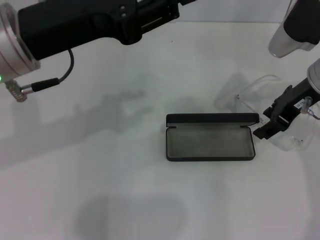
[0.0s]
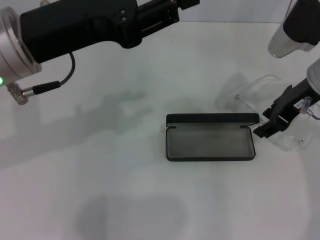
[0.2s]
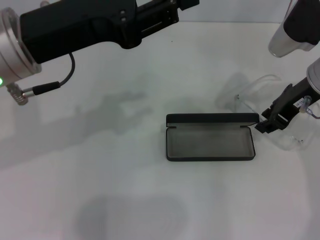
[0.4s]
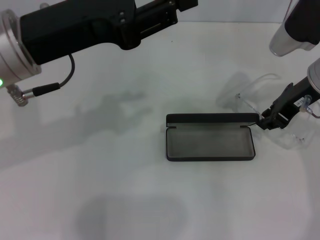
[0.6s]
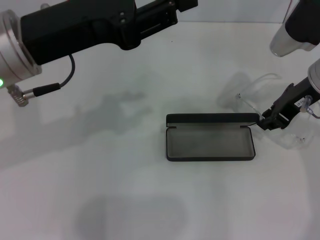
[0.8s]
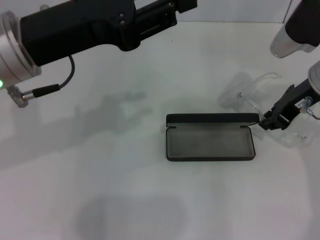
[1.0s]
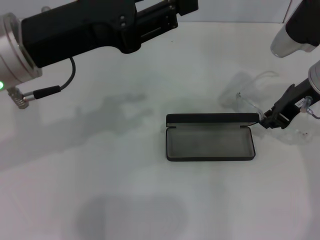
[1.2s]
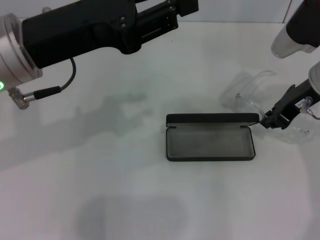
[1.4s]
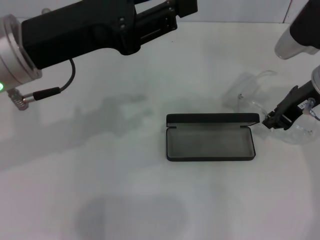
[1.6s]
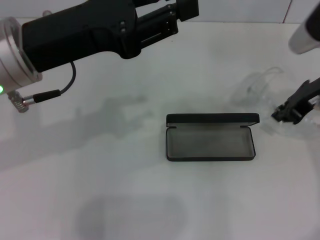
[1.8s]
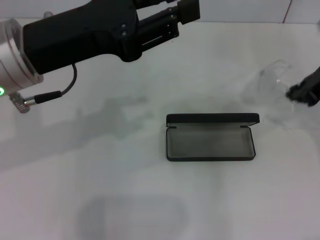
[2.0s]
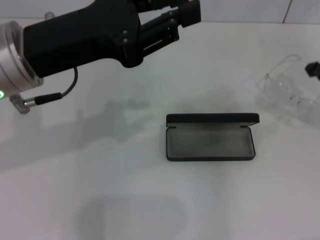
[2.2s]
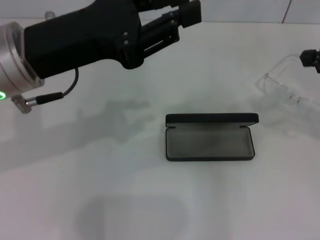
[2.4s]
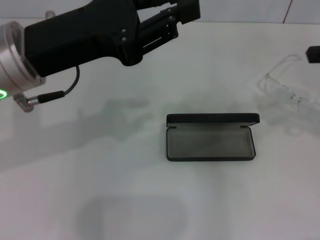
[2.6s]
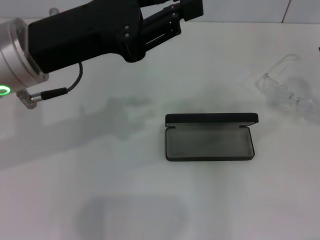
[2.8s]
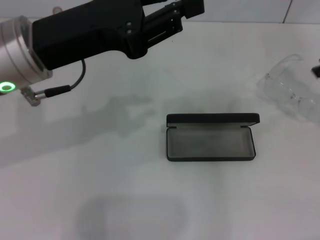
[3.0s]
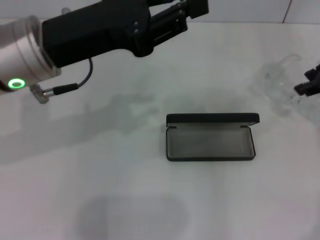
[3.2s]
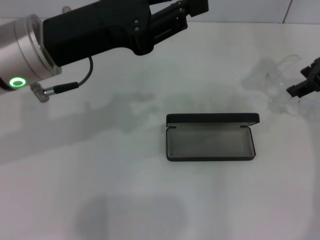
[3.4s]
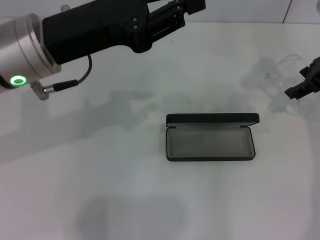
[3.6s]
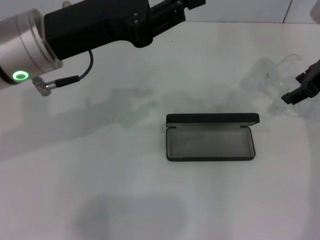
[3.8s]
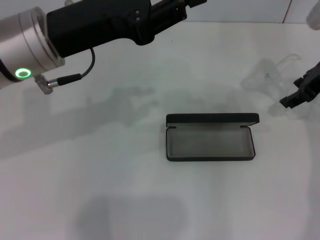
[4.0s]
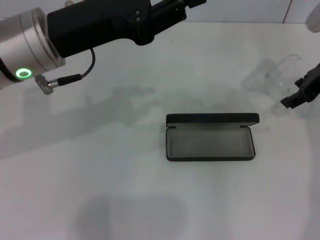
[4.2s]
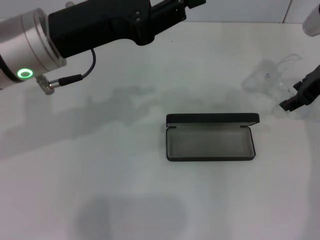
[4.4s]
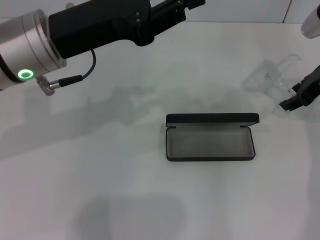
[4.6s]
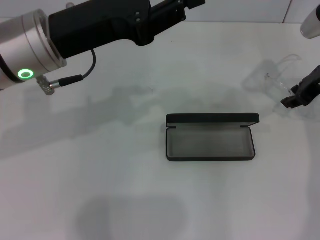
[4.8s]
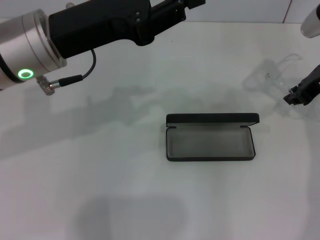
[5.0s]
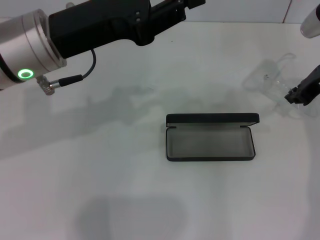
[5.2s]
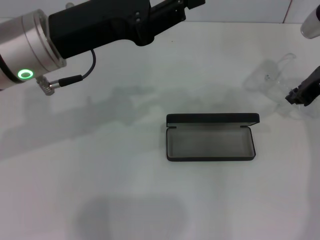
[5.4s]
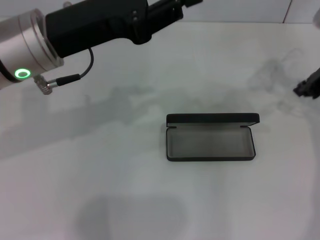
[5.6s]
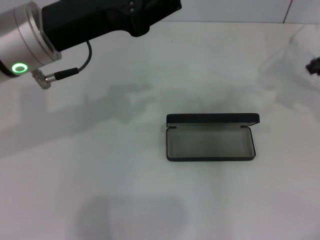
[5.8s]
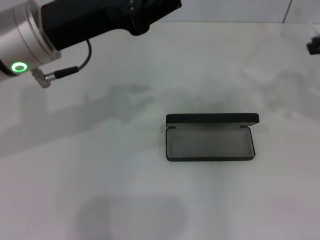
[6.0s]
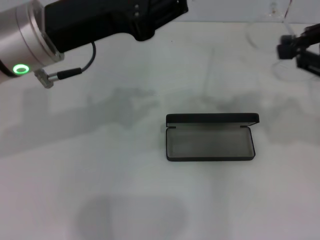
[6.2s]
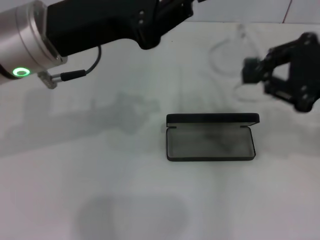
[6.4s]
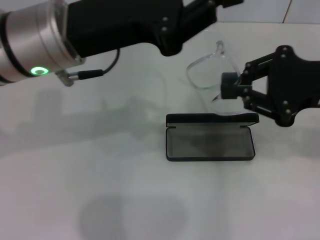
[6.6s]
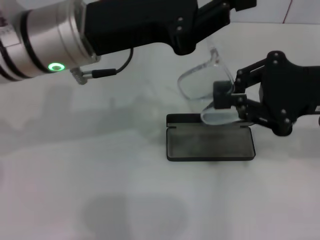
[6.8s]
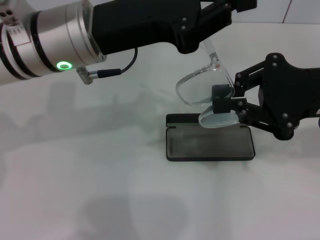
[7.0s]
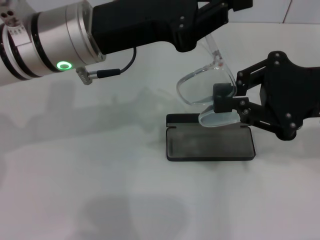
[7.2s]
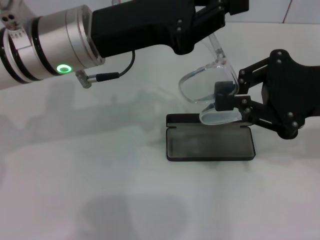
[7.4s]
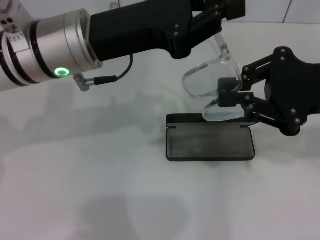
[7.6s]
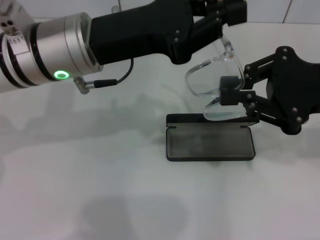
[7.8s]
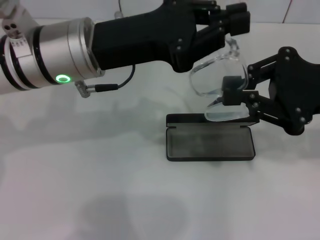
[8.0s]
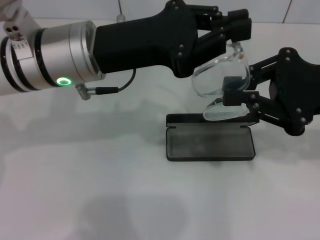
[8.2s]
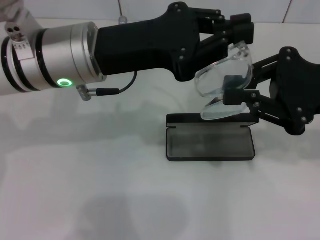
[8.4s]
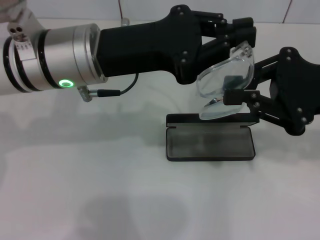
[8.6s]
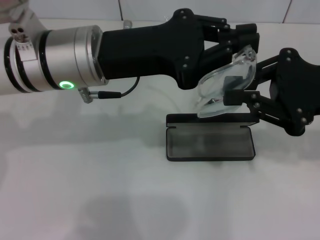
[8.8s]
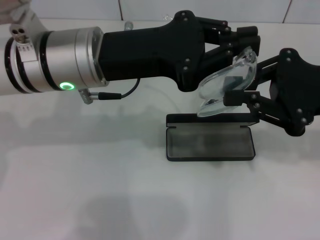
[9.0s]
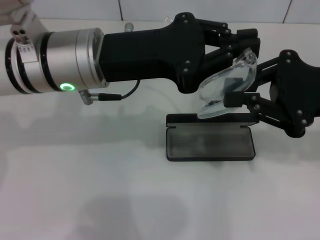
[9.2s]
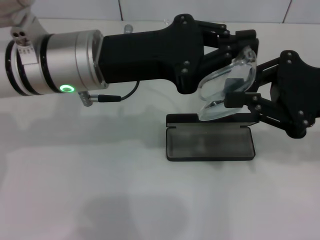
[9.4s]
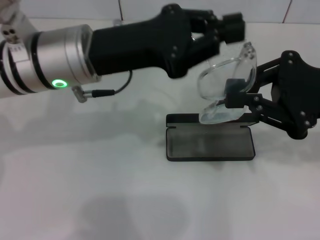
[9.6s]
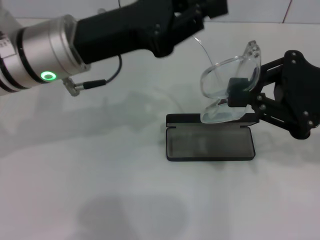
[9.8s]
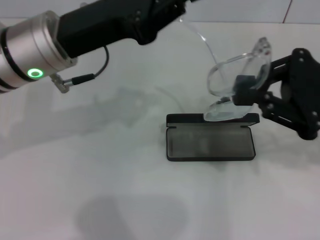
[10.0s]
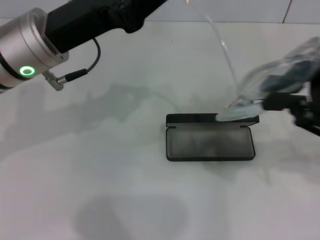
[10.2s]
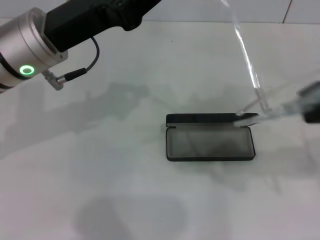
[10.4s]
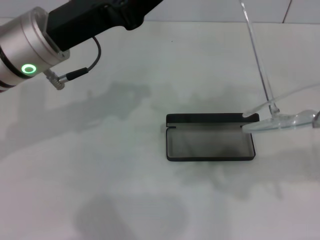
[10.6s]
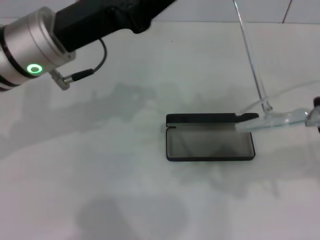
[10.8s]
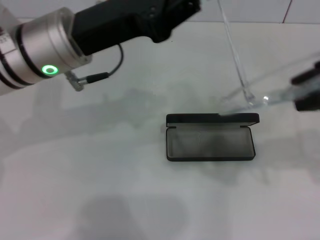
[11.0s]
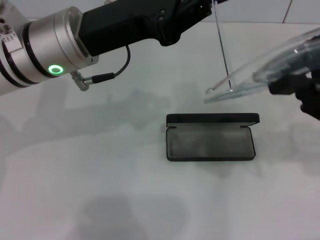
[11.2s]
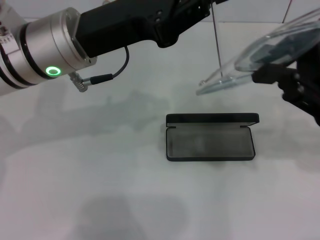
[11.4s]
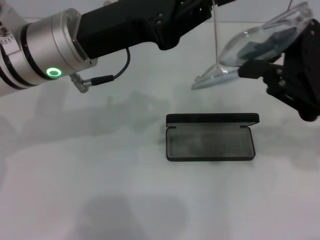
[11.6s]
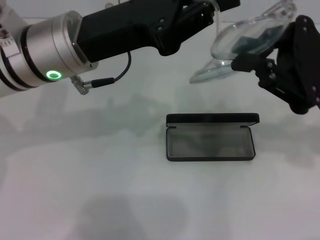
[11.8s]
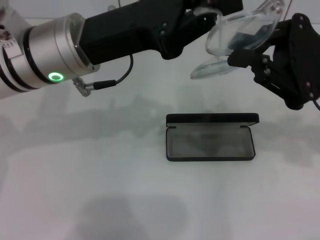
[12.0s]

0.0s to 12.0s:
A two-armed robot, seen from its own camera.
Step, 0.0s to 5.2s: Grab the eyeglass frame with your right hand.
0.0s to 1.6s: The right gripper closes up.
1.6s to 3.0s: The right gripper heads upward and to the right, covering about 10 cm.
3.0s to 4.4s: The right gripper is displaced downward and forward by about 10 cm, and opens.
4.4s to 6.0s: The right gripper is displaced upward and backward by some 10 cm, and closes its fingers.
6.0s to 7.6s: The right gripper travels to the left and backward by roughly 10 cm.
10.4s to 12.0s: The right gripper moves forward, about 5 cm.

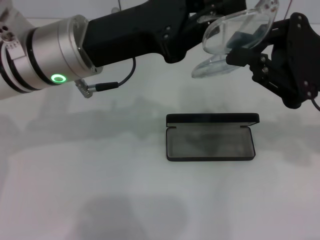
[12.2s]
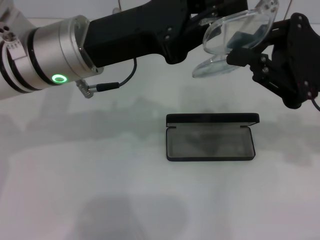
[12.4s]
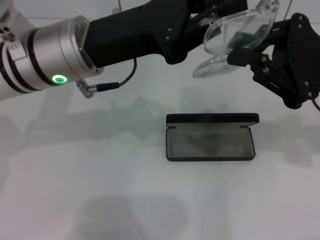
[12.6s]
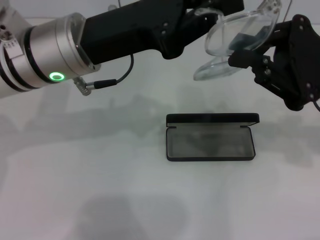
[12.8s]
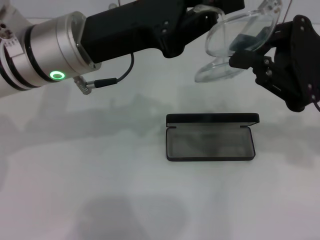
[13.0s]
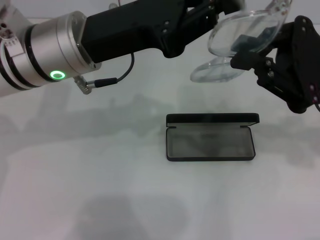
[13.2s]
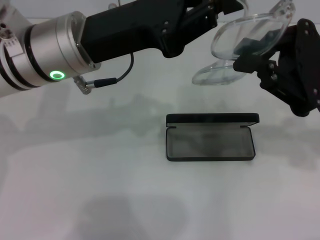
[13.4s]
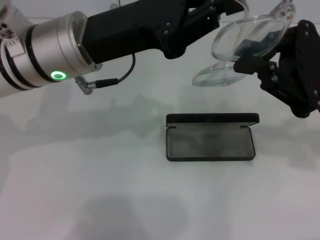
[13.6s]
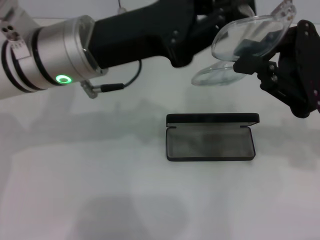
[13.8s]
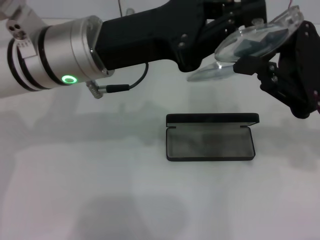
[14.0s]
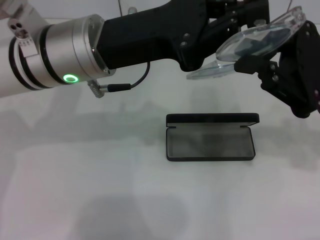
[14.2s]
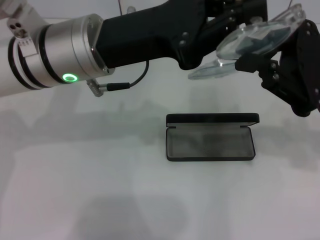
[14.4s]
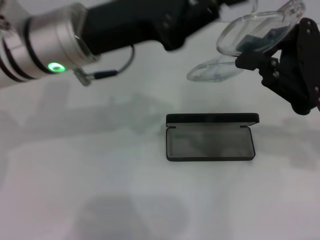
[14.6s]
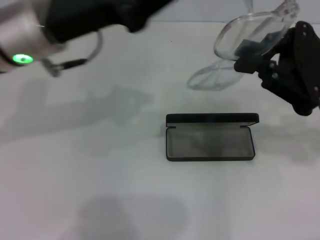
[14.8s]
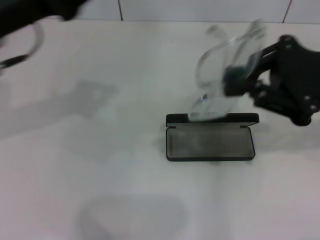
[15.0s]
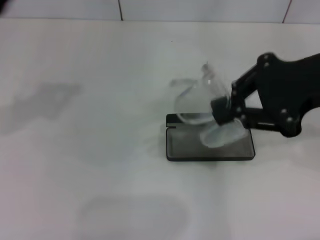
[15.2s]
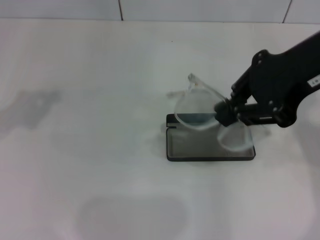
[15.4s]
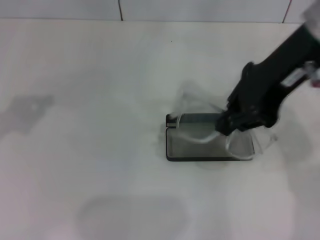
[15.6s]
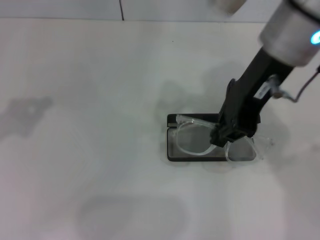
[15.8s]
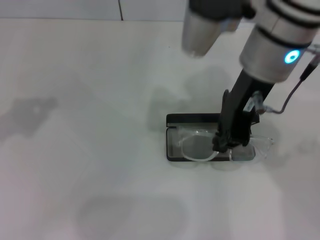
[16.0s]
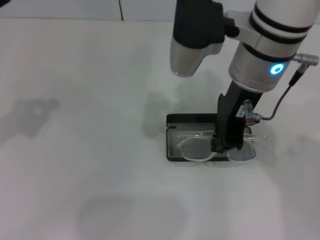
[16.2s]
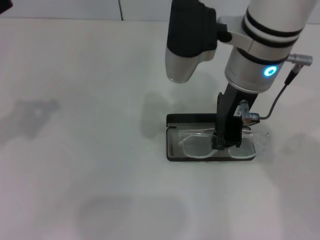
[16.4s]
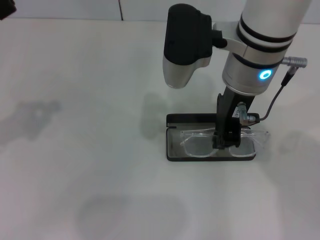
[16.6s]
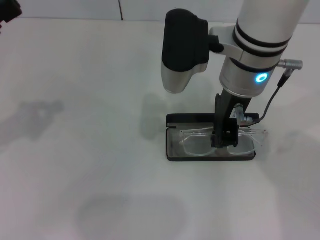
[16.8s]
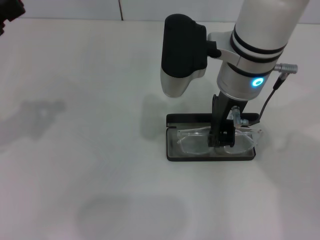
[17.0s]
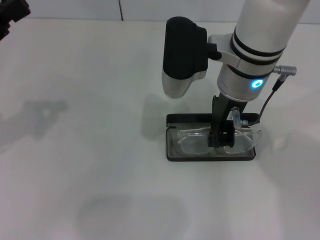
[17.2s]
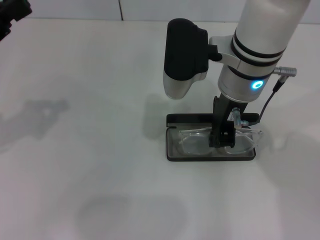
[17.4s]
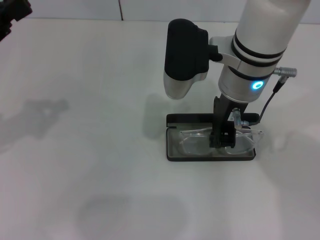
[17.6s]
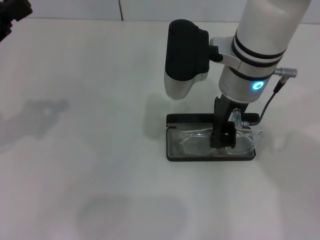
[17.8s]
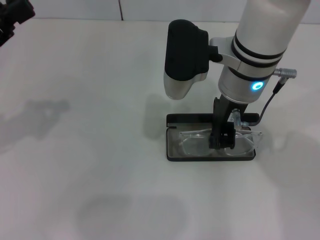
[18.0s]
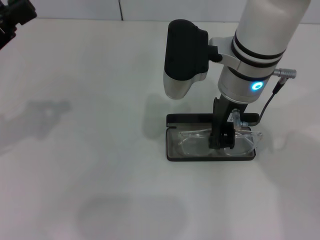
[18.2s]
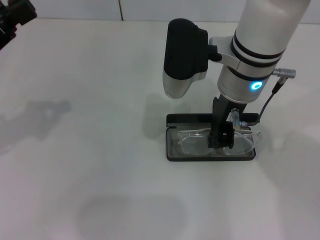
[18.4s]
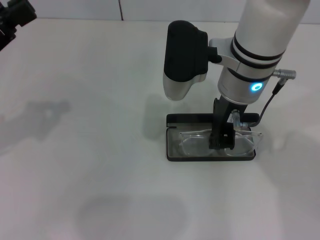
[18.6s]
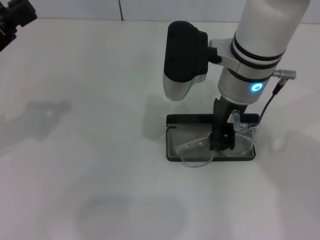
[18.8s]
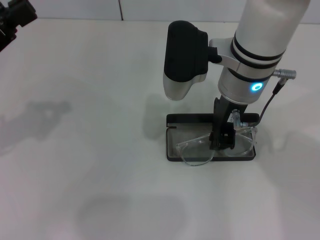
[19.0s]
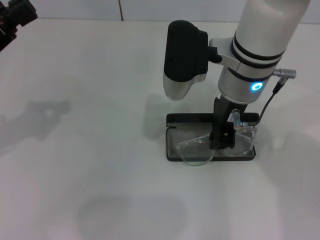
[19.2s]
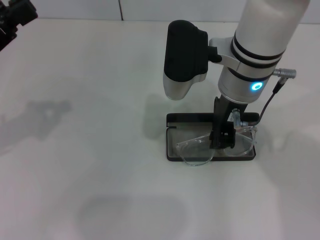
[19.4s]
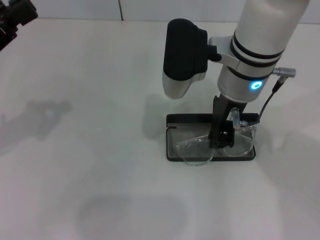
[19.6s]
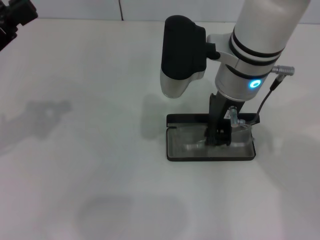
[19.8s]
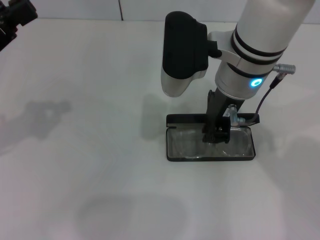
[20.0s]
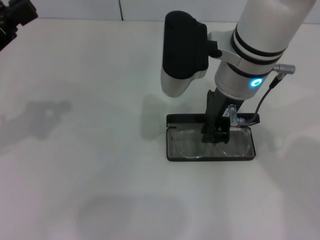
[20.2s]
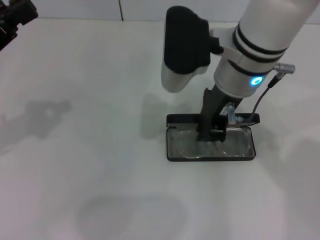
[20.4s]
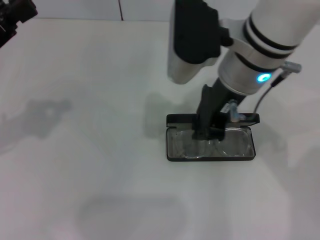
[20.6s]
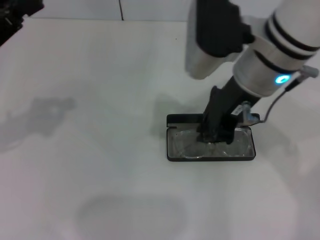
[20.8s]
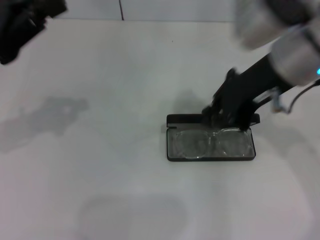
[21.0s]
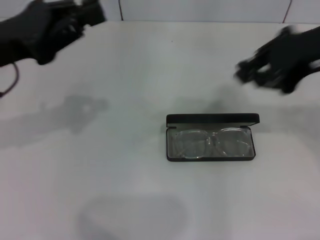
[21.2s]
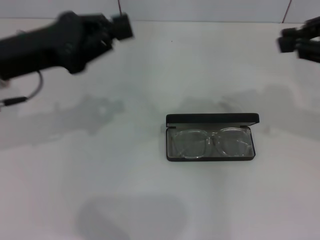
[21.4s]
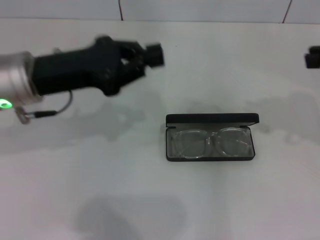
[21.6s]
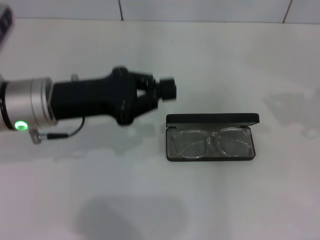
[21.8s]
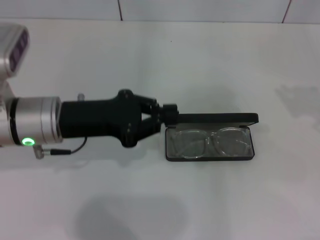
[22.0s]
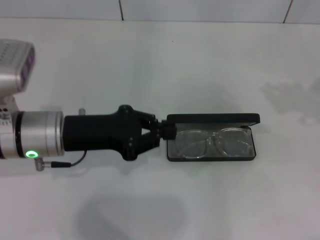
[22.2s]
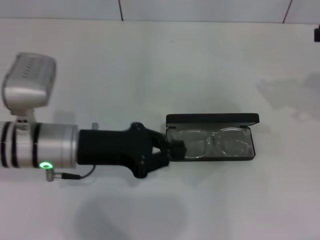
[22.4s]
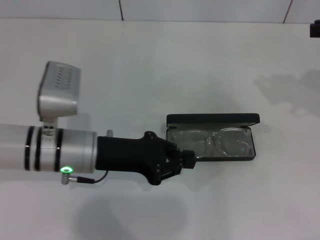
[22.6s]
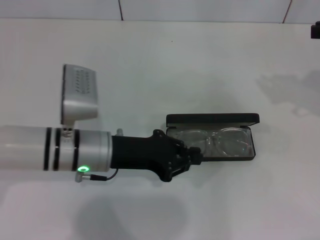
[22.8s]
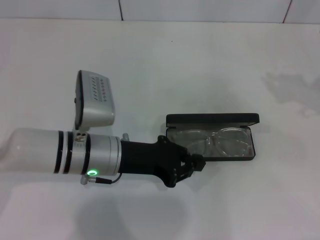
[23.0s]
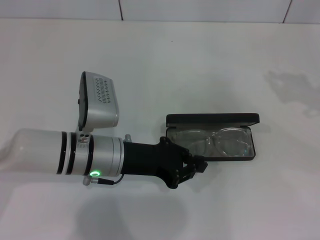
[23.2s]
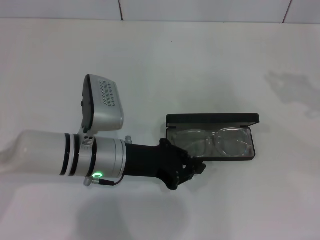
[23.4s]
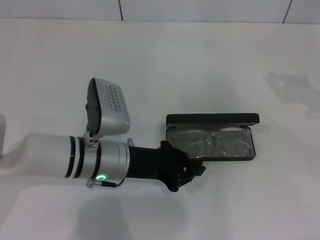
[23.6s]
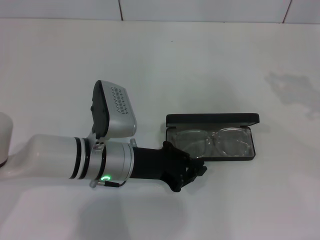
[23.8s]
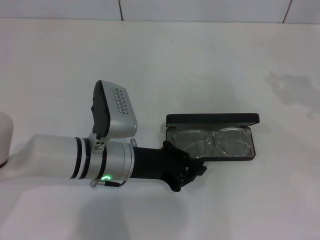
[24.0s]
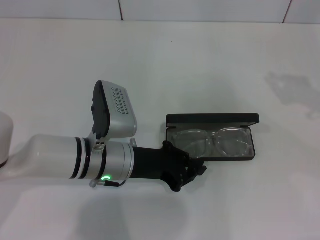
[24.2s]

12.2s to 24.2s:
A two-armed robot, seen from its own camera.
Step, 13.0s to 20.0s: Put the glasses into the case with your right hand.
12.2s to 13.8s: The two grippers keep their place.
13.8s to 15.2s: The left gripper is displaced to the left by about 15 cm, while the right gripper goes roughly 10 cm upward.
15.2s to 16.6s: The right gripper is displaced to the left by approximately 15 cm. Meanwhile the left gripper shifts by about 5 cm.
16.6s to 18.2s: The grippers stay close to where they were, moving slightly.
18.2s to 19.8s: Neither gripper changes place.
19.8s to 21.2s: The right gripper heads to the right and upward, covering some 20 cm. Meanwhile the left gripper is displaced to the right by roughly 5 cm.
21.2s to 22.6s: The left gripper moves downward and to the right, roughly 15 cm. Meanwhile the right gripper shifts about 10 cm to the right and downward.
22.6s to 24.2s: The left gripper shifts by roughly 5 cm.
